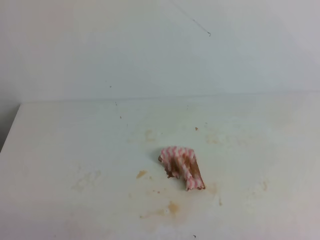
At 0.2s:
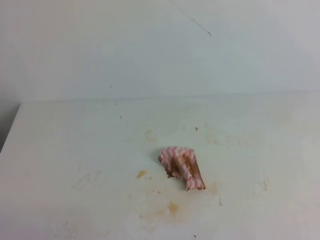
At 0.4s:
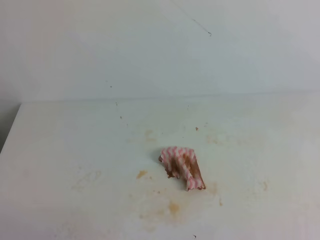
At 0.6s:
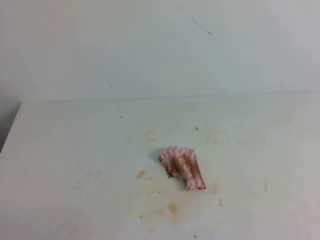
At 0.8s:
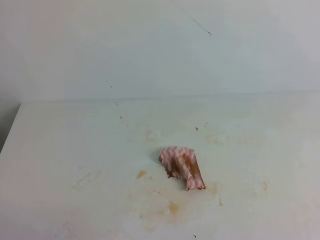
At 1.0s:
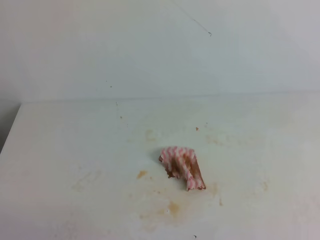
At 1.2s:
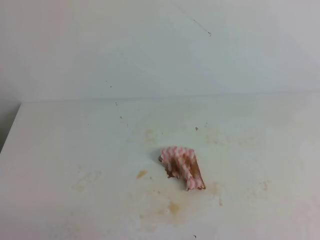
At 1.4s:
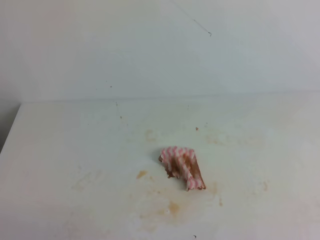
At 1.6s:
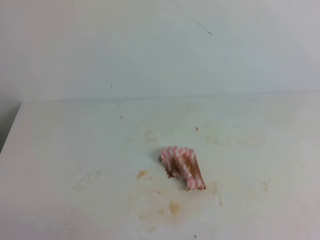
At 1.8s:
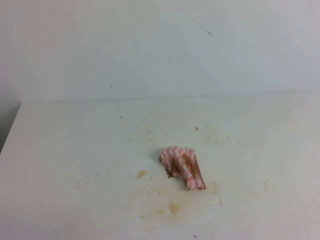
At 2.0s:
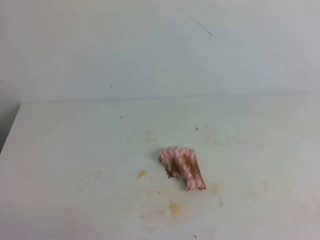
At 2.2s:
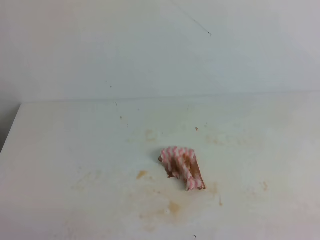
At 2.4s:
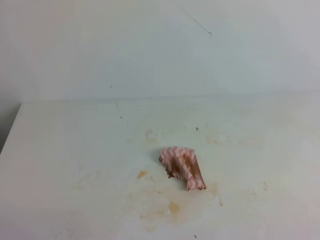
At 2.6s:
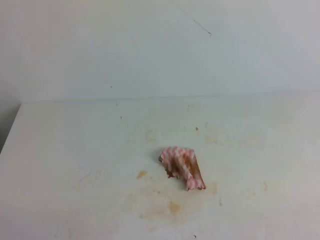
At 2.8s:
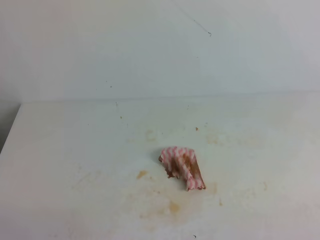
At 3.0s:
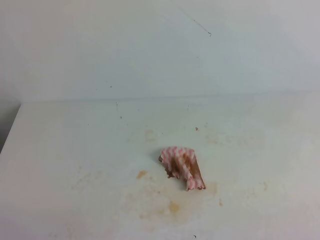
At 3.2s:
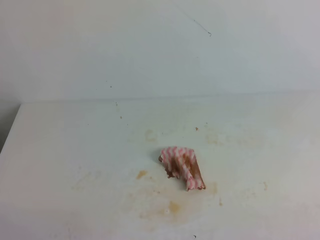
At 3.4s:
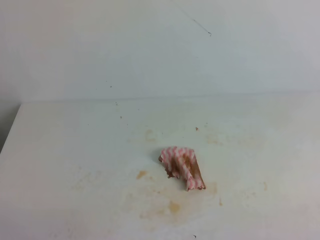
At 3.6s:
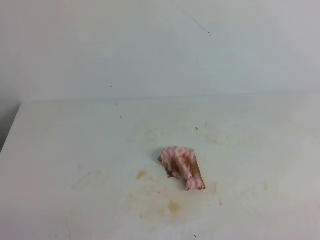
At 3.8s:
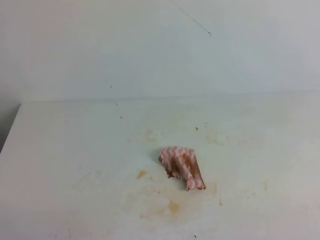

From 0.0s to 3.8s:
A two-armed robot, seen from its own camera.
From 2.6s to 3.8s: Neither gripper changes place.
